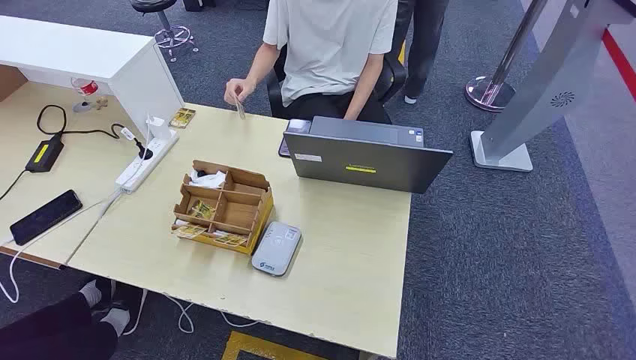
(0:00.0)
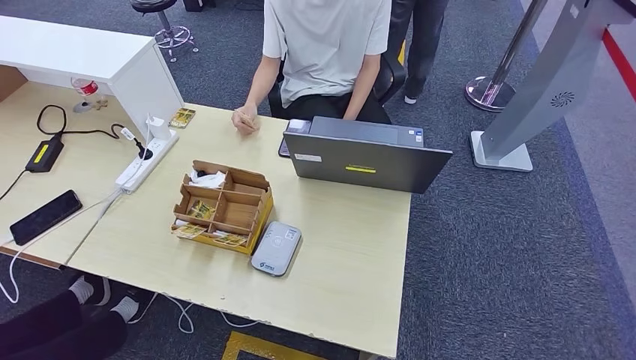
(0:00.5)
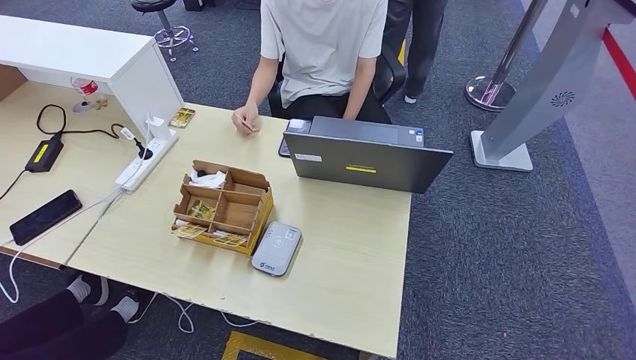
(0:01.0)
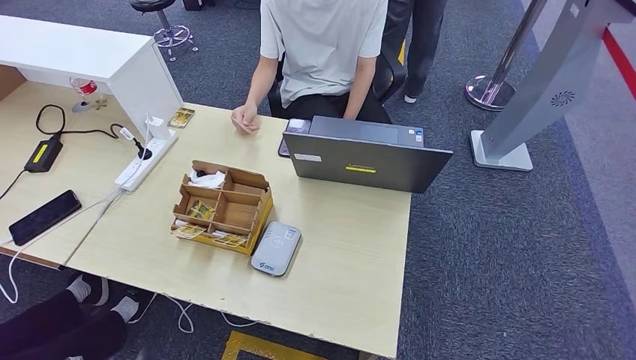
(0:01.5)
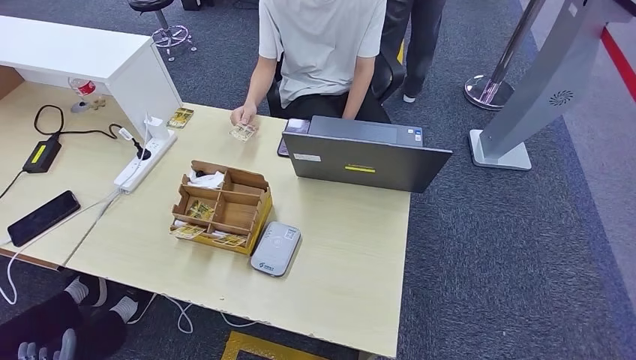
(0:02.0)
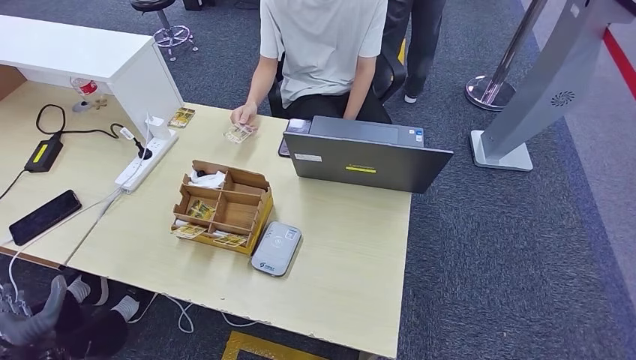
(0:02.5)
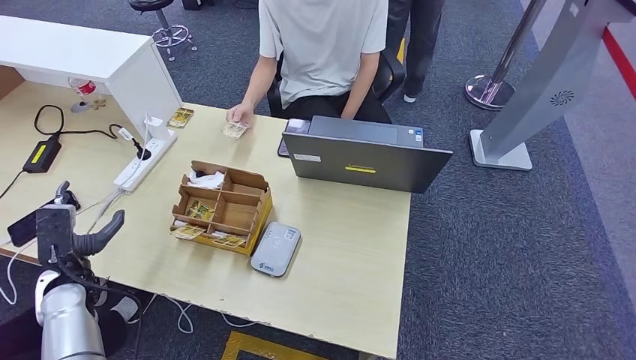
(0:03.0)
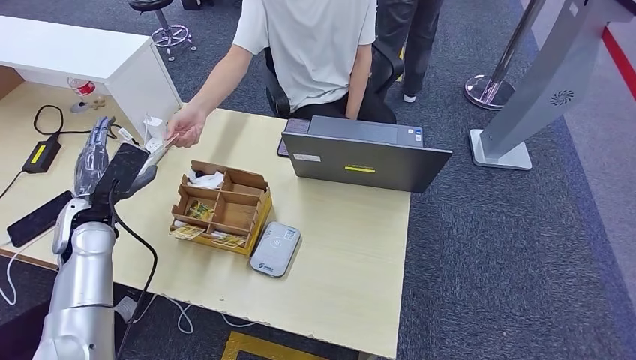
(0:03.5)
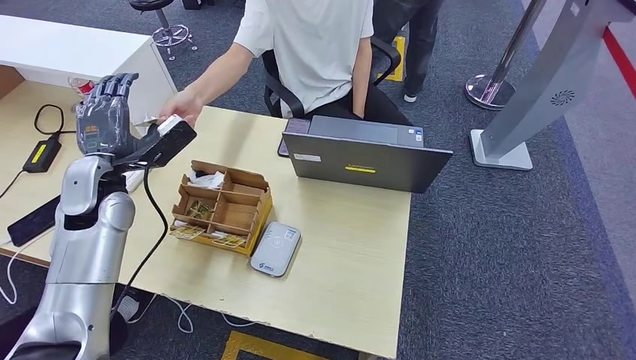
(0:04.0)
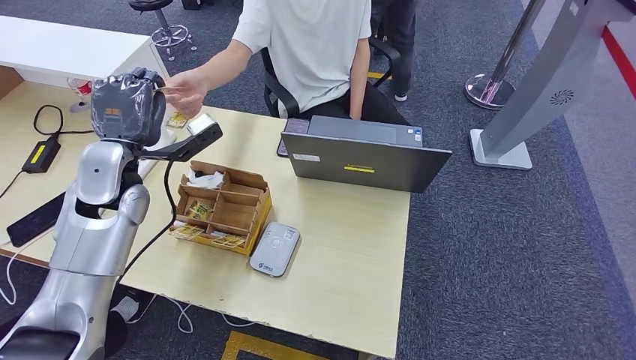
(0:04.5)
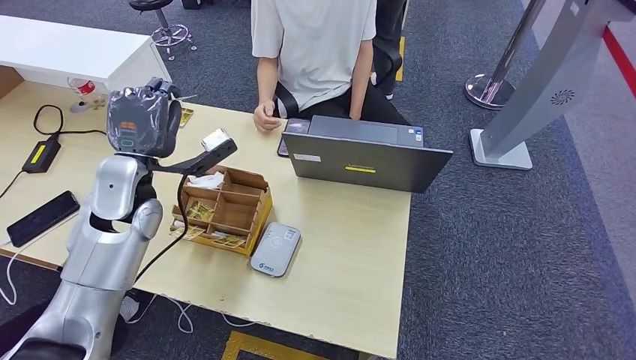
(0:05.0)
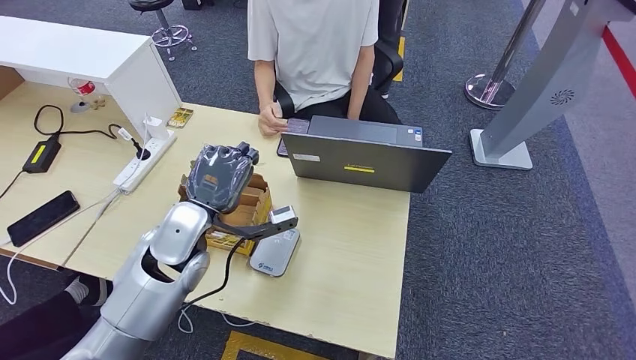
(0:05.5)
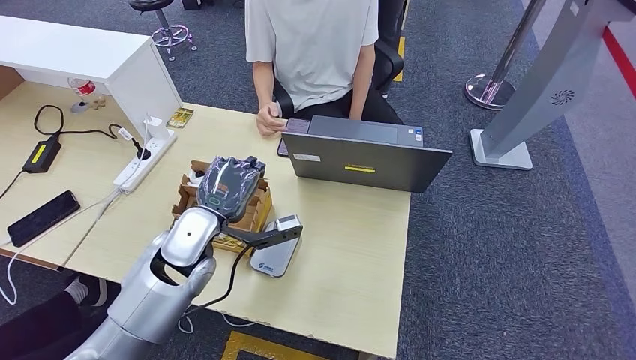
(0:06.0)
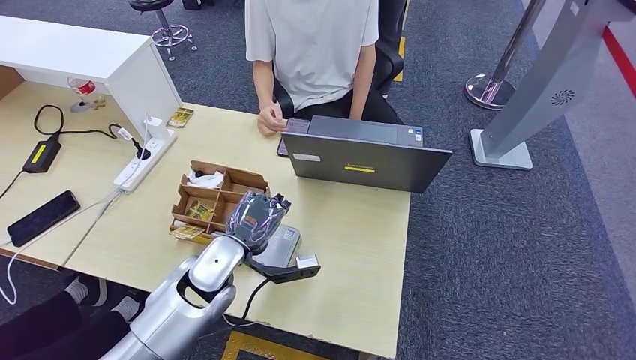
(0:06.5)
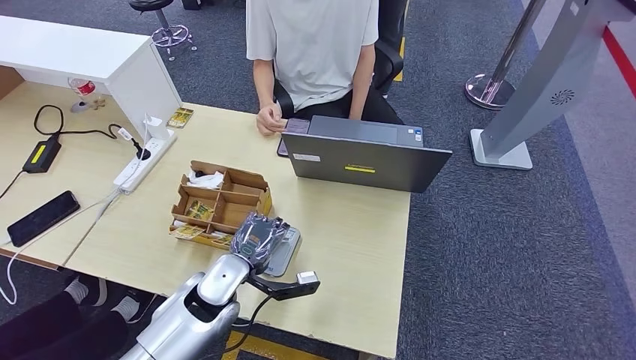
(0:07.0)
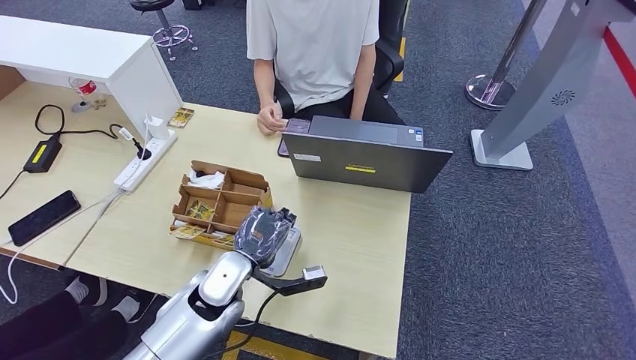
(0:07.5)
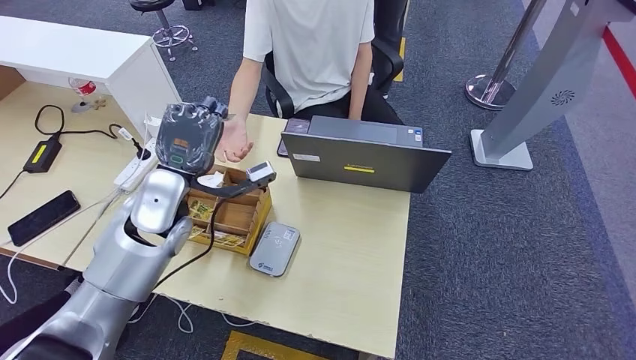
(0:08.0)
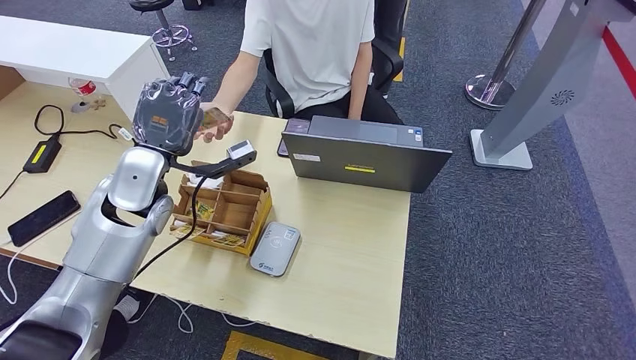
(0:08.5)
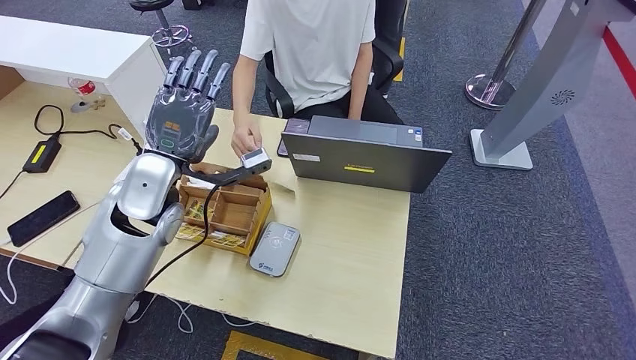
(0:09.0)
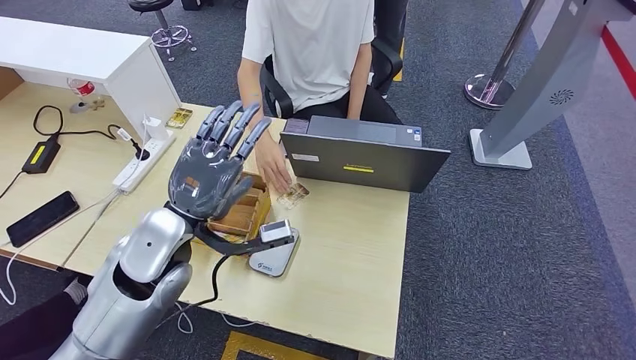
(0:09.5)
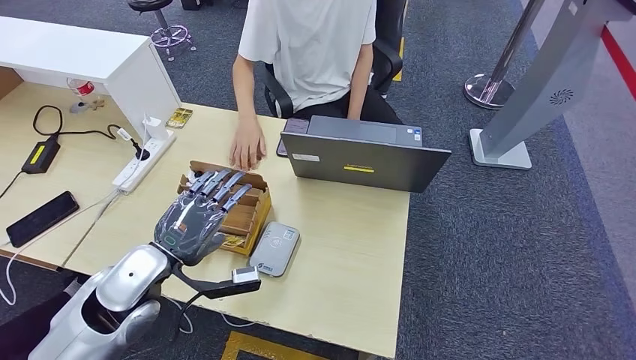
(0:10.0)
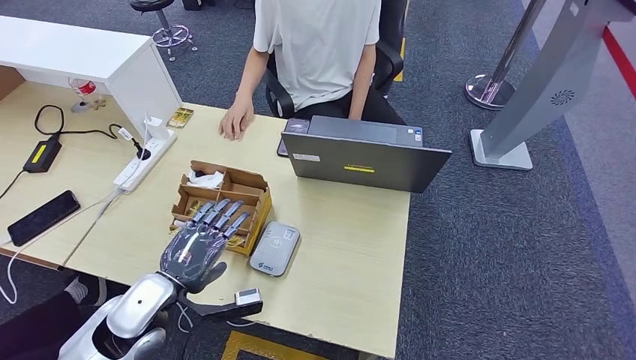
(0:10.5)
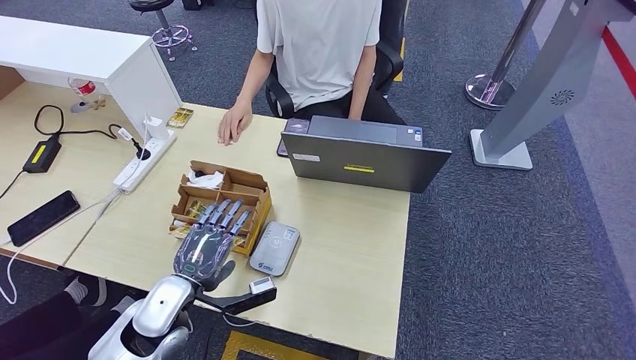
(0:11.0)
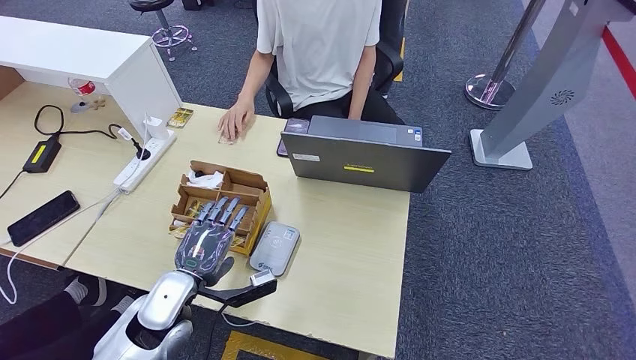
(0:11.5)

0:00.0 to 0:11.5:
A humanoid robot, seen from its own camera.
Step, 0:00.0 to 0:05.0: Take the ID card from the person's hand.
Step, 0:05.5 to 0:07.0: Place the ID card on the card reader.
Step, 0:07.5 to 0:10.5: Hand the ID card to the person.
0:02.0 to 0:04.0: The left hand heads forward and upward, covering roughly 40 cm.
0:06.0 to 0:07.5: The left hand shifts some 10 cm downward.
0:07.5 to 0:09.5: The left hand travels upward by approximately 15 cm.
0:09.5 to 0:11.5: The left hand moves downward, some 15 cm.

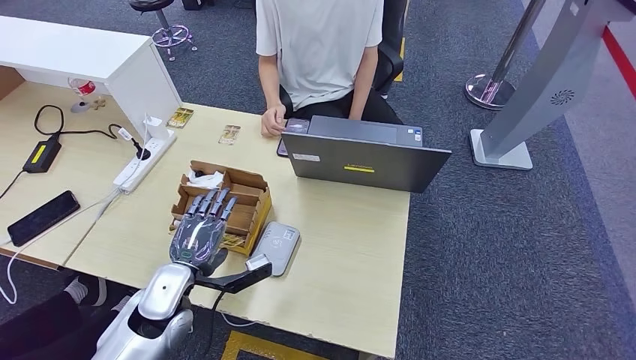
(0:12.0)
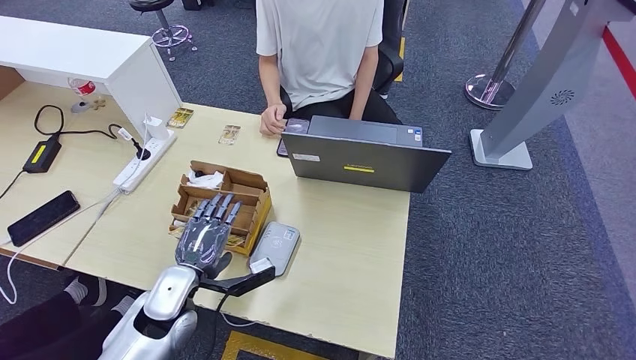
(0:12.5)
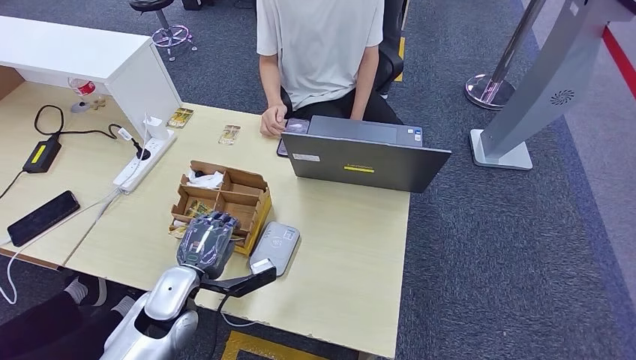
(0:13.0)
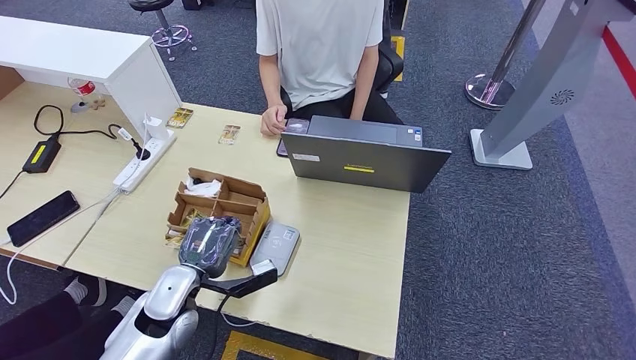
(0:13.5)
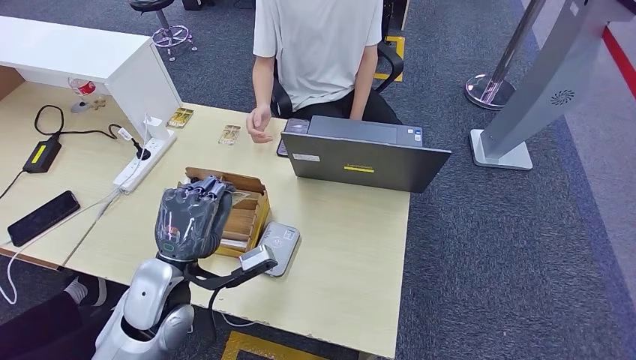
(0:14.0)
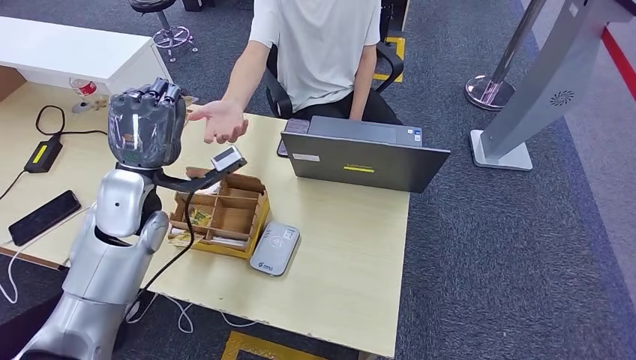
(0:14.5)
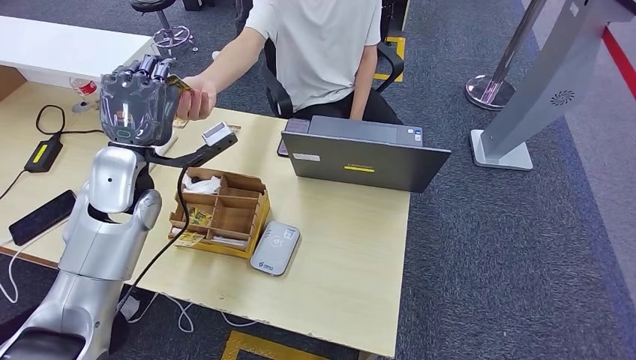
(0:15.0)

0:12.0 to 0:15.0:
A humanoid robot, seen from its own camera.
Step, 0:12.0 to 0:14.0: Pick up the room key from the key card box.
Step, 0:14.5 to 0:15.0: Hand the room key to the person.
0:12.0 to 0:13.5: The hands make only small movements.
0:13.5 to 0:15.0: The left hand travels upward and forward by approximately 20 cm.

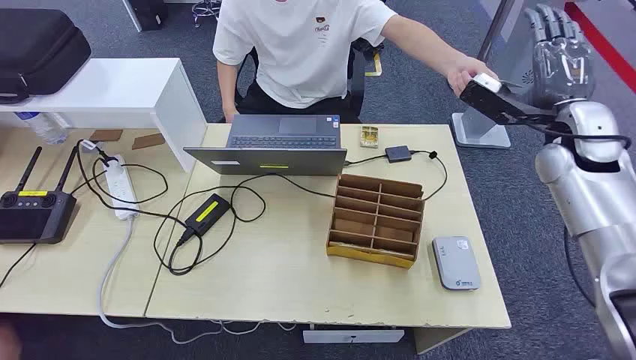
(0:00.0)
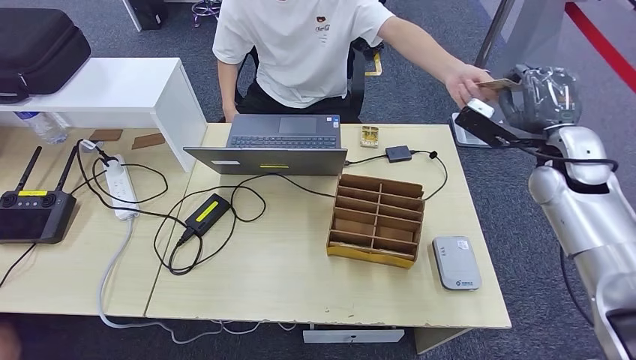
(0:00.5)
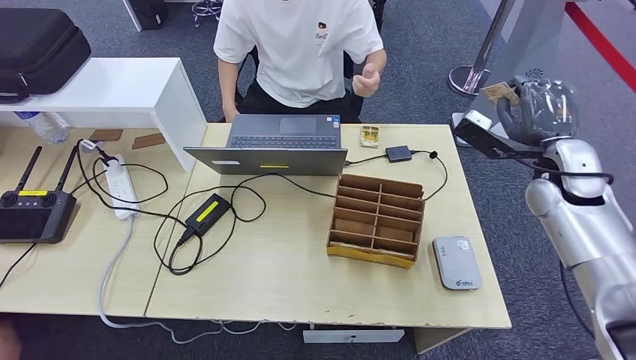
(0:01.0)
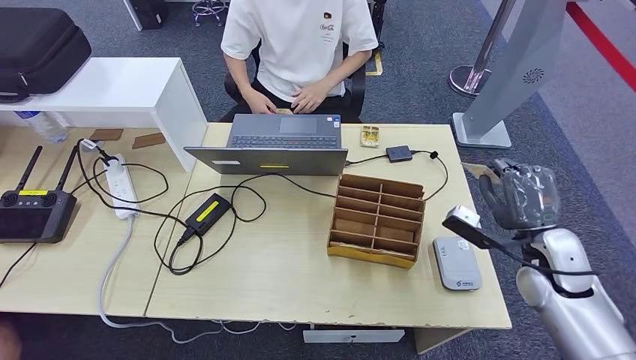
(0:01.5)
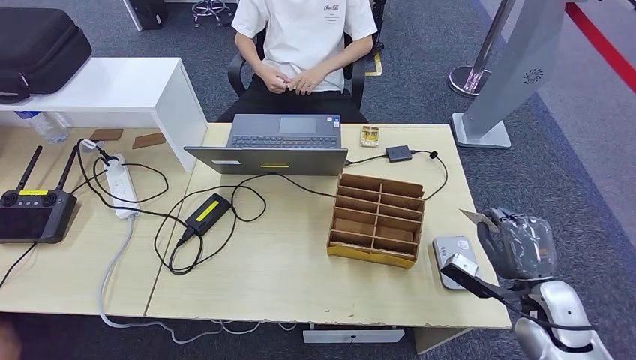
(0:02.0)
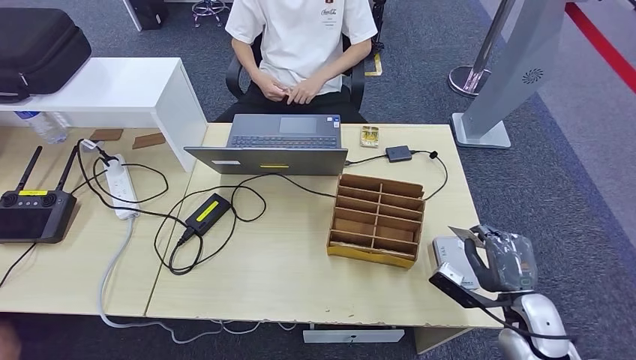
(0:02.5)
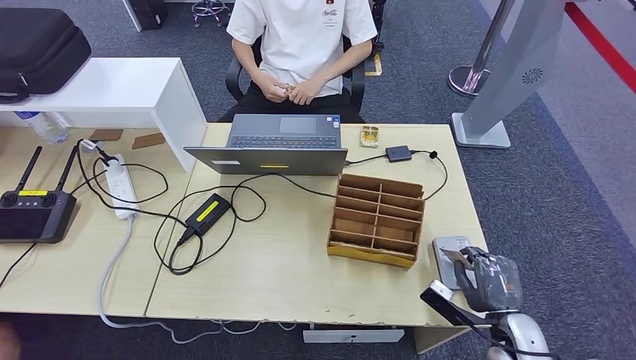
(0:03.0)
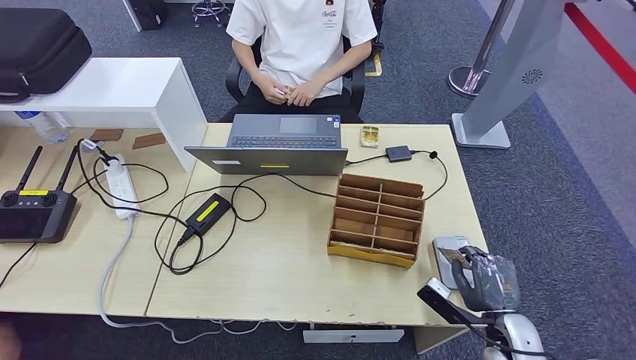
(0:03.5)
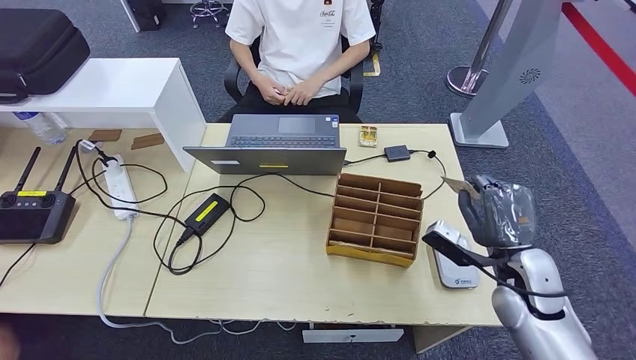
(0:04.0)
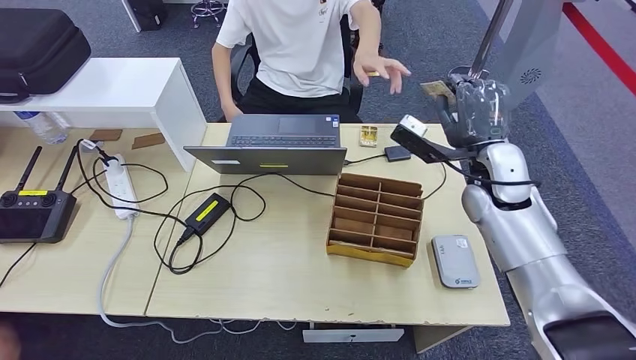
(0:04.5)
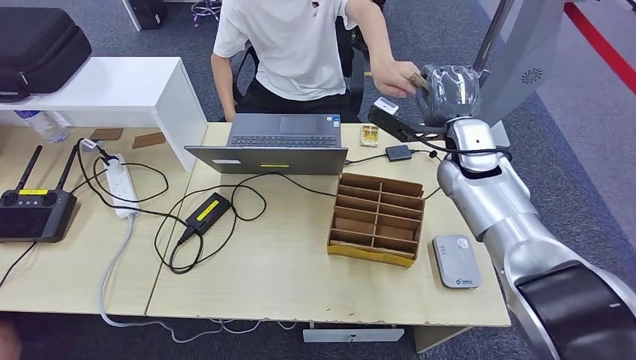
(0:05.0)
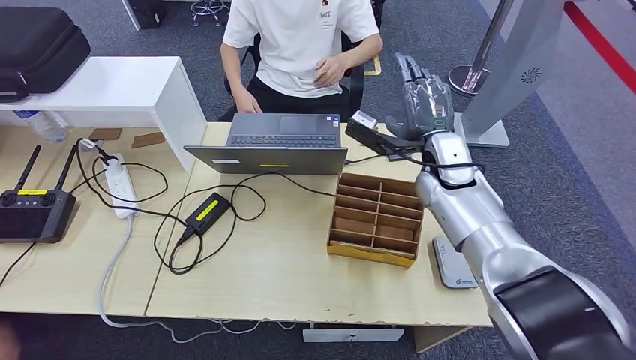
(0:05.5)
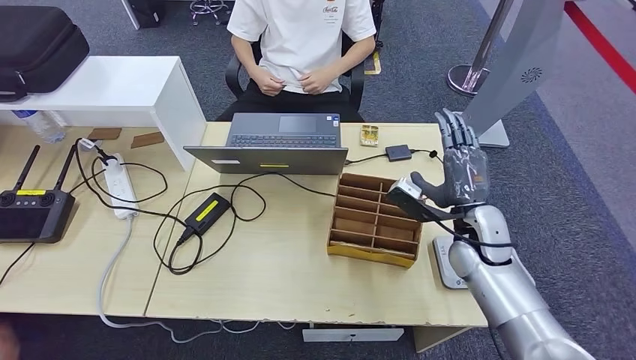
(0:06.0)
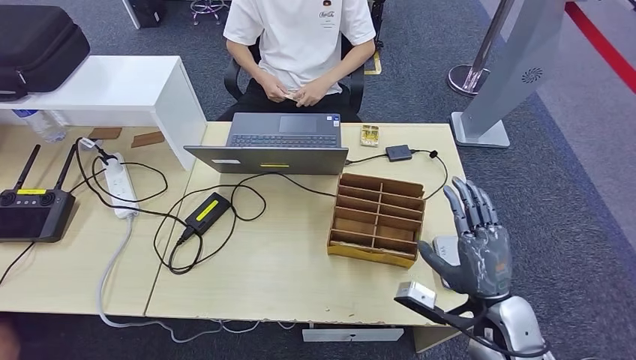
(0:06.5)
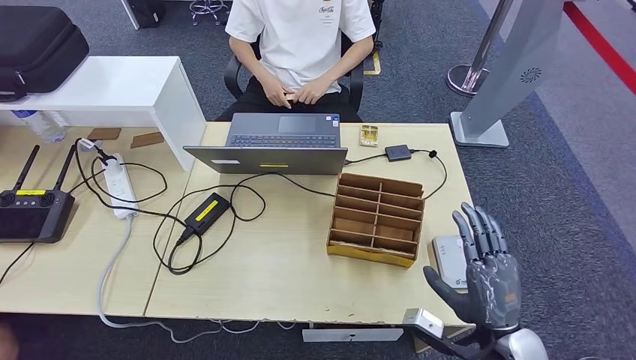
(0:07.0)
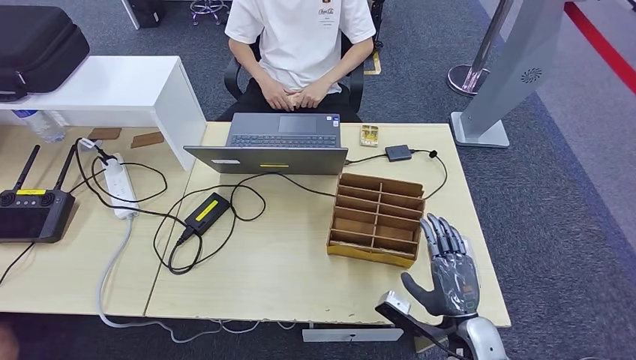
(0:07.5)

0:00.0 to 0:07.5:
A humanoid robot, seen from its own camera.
Step, 0:00.0 to 0:02.5: Take the ID card from the person's hand.
Step, 0:03.0 to 0:04.5: Place the ID card on the card reader.
Step, 0:05.0 to 0:07.0: Hand the ID card to the person.
0:02.0 to 0:04.0: The right hand goes downward and returns, roughly 10 cm each way.
0:04.0 to 0:05.5: The right hand heads forward, to the left and upward, covering roughly 25 cm.
0:05.5 to 0:07.5: The right hand is displaced backward and downward by some 30 cm.
